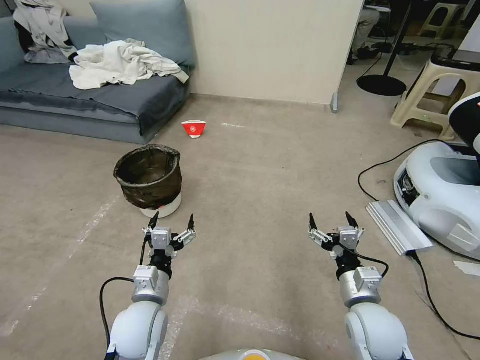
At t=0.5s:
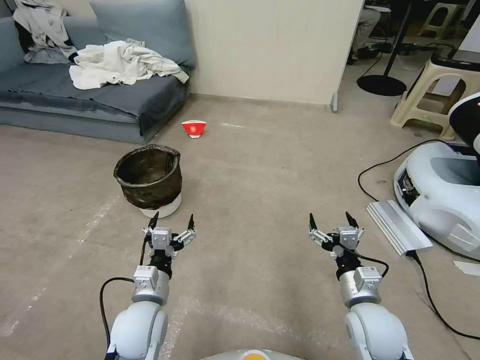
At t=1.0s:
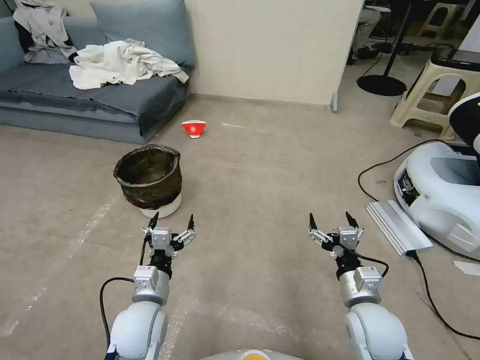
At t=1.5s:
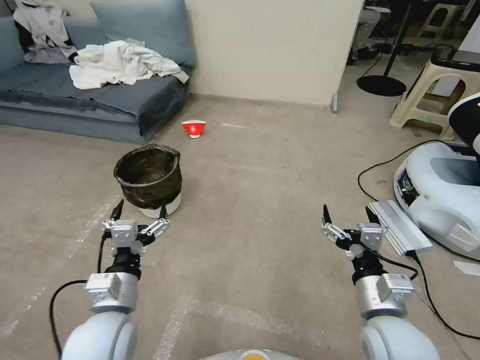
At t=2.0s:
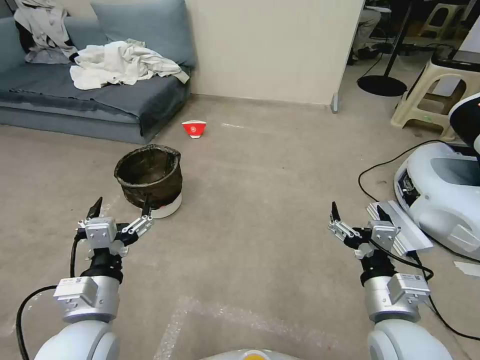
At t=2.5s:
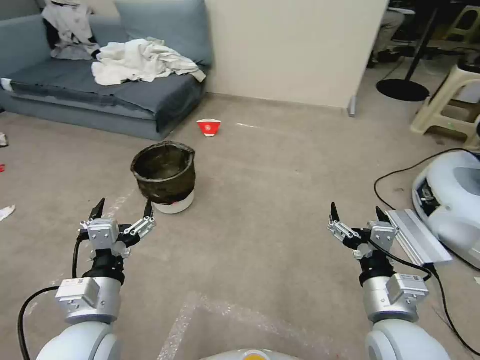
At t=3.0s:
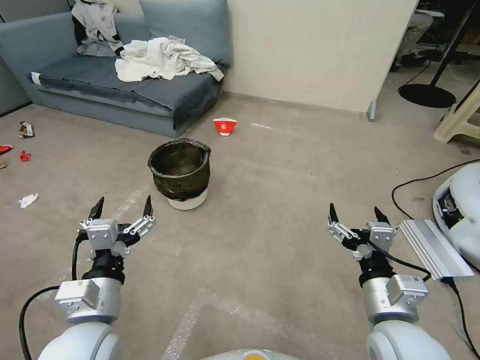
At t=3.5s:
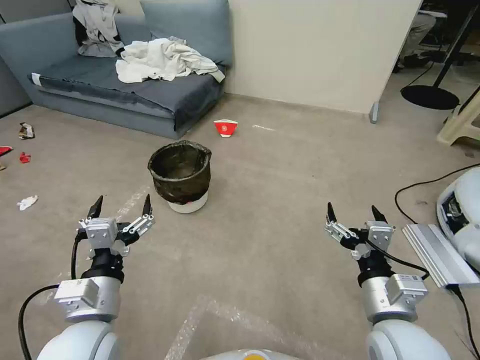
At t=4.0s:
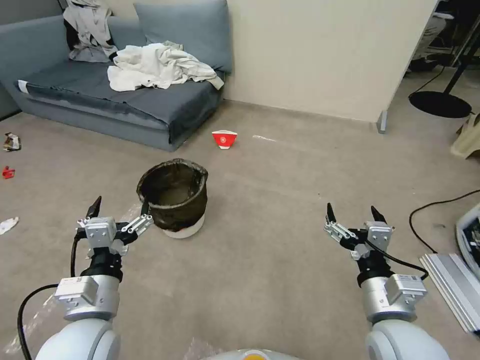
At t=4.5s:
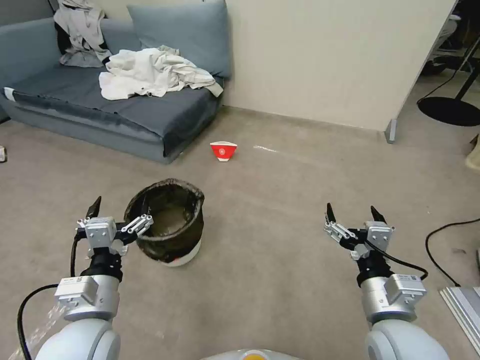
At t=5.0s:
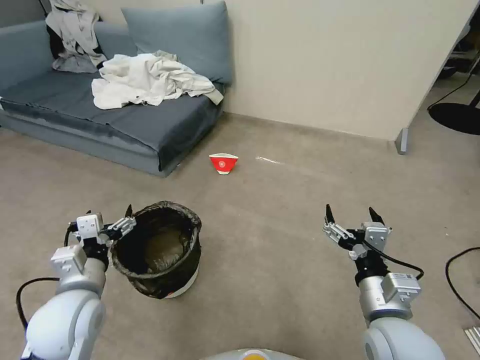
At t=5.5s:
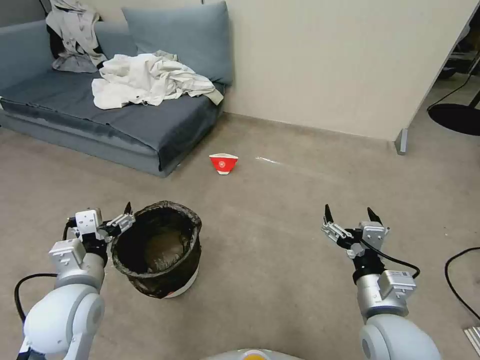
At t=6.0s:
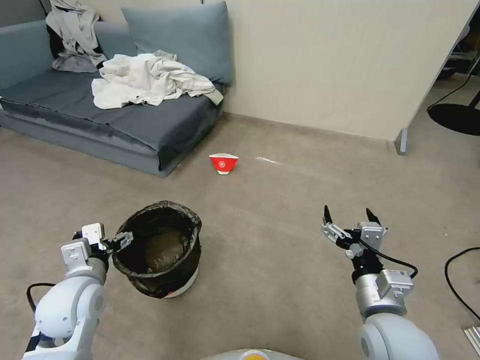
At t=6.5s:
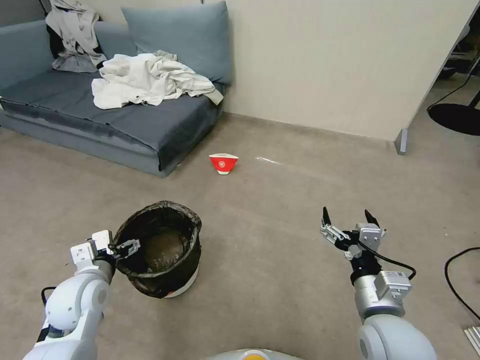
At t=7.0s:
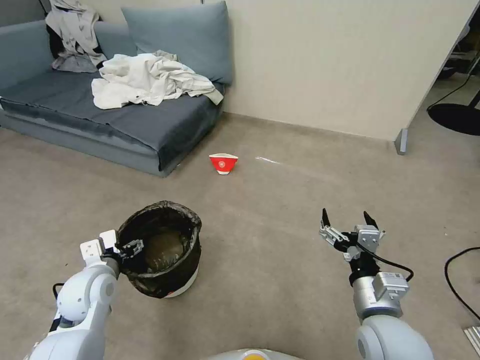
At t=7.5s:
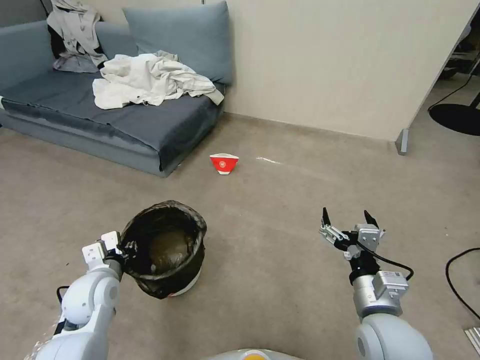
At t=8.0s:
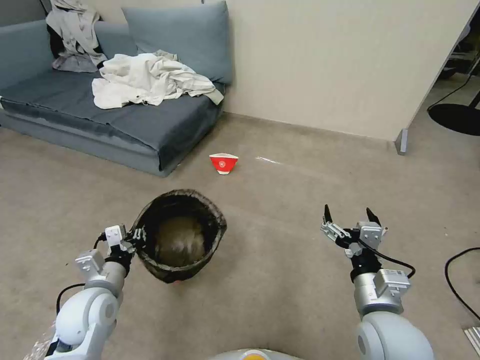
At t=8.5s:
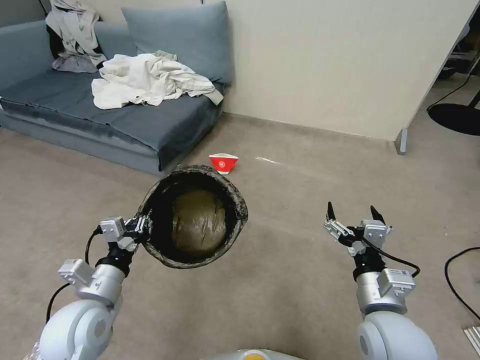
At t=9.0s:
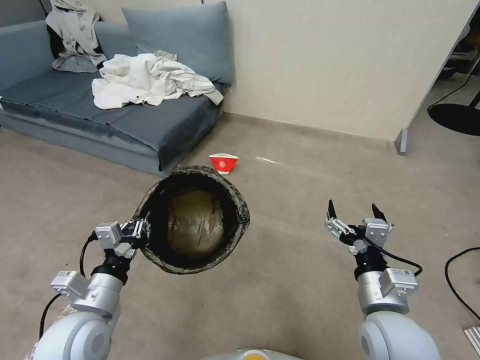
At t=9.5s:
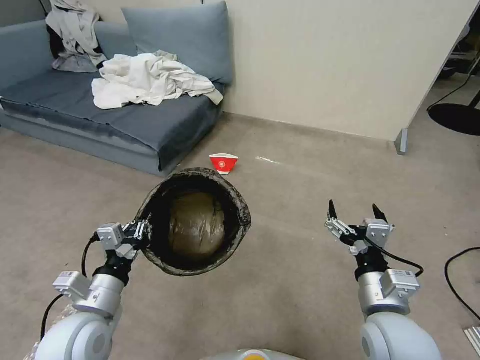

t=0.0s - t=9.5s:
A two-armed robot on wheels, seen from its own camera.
Task of the whole recording: Pick up the trash can from the floor.
t=4.0s - t=5.5s: The left gripper travels forward by some 5 cm.
t=5.5s - t=7.5s: The left gripper is displaced downward and forward by some 10 cm, and closes its fingers.
t=7.5s - t=9.5s: The left gripper moves backward, about 10 cm.

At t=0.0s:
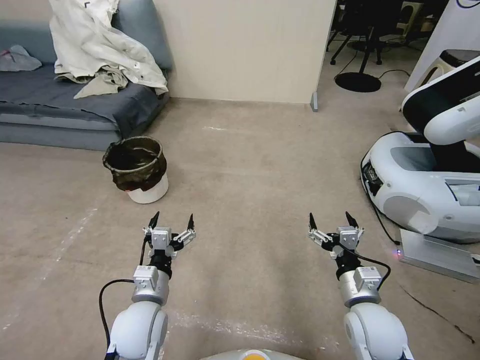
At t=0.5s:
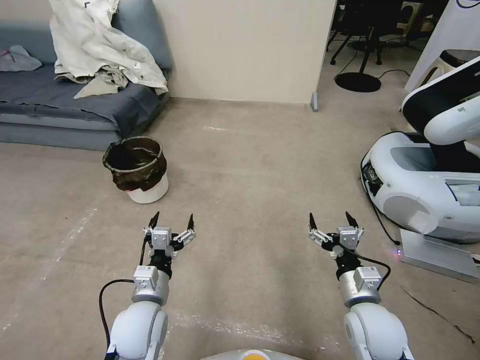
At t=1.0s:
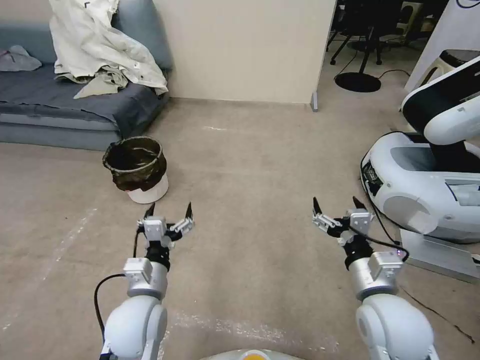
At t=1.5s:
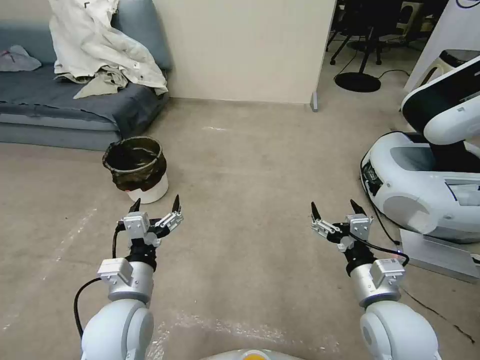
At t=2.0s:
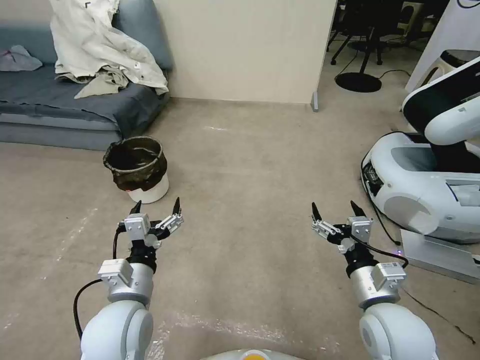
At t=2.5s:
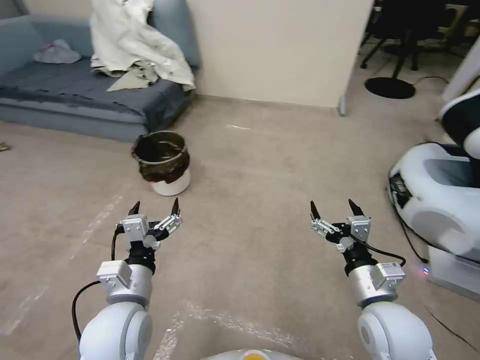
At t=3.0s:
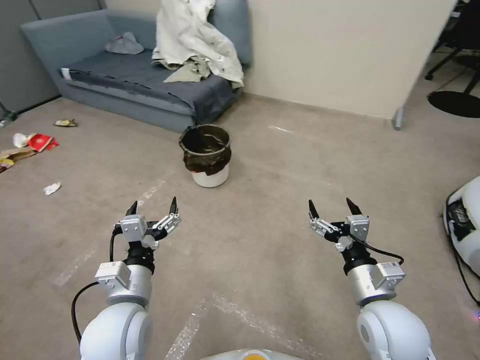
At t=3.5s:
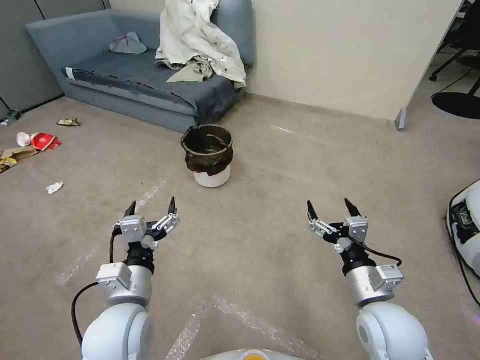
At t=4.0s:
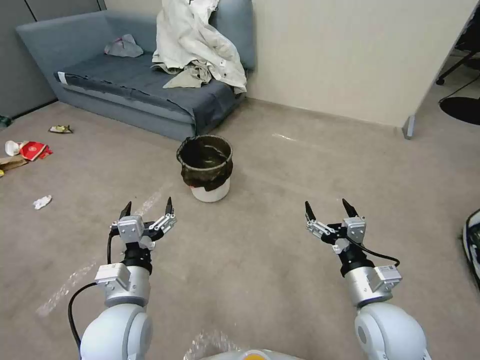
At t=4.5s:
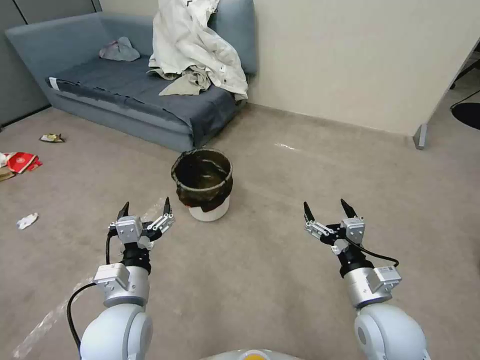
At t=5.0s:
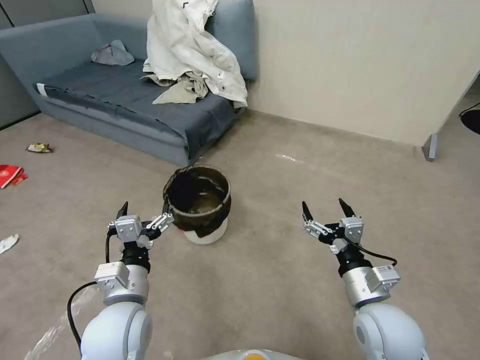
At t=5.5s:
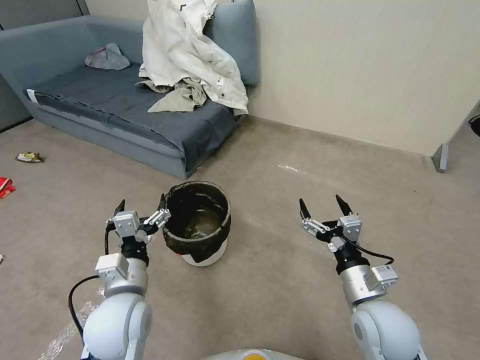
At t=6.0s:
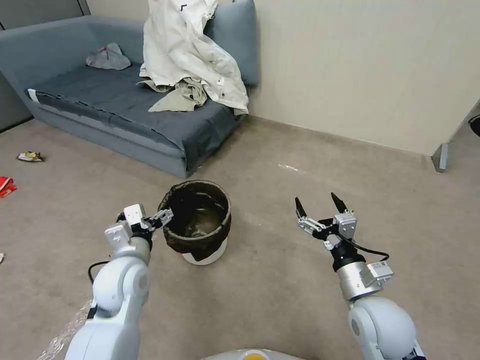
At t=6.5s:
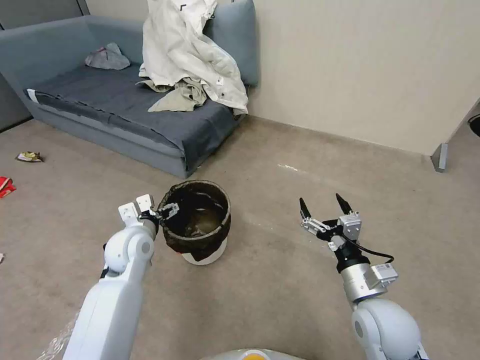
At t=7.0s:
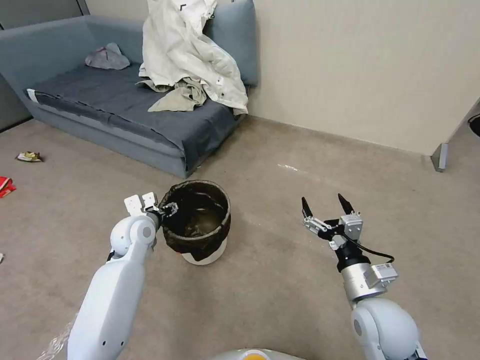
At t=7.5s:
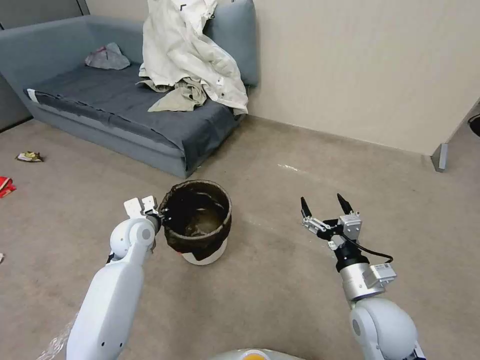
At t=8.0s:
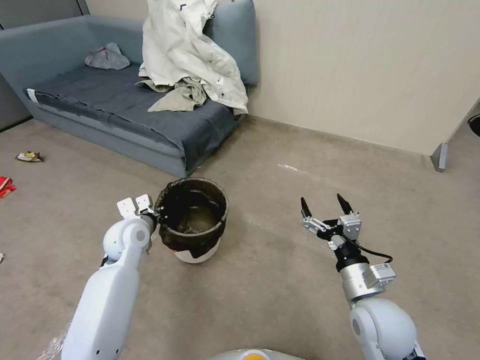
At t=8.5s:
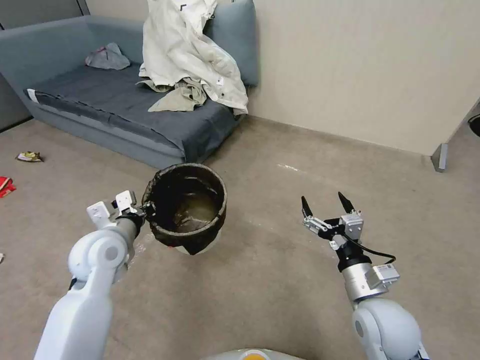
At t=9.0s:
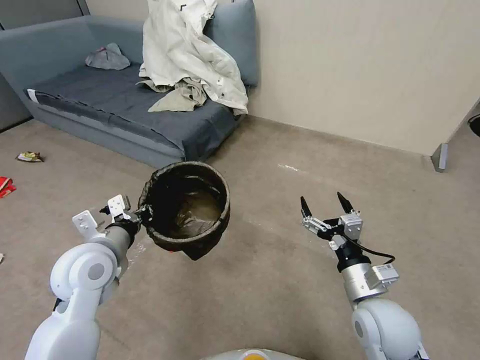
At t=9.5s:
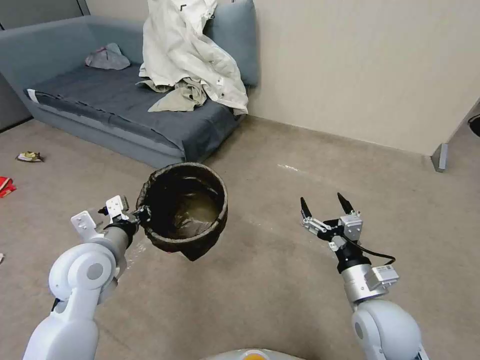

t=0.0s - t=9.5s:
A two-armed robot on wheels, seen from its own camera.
Task of the whole recording: Pick up the trash can from the floor.
t=5.5s - t=7.5s: The left gripper shifts some 20 cm forward, and closes its fingers.
t=7.5s - t=9.5s: The left gripper moves backward and upward, some 15 cm.
